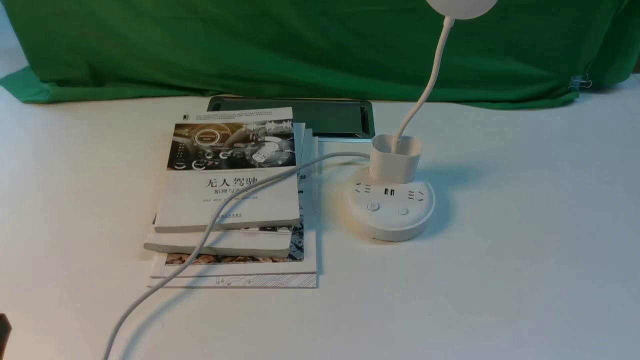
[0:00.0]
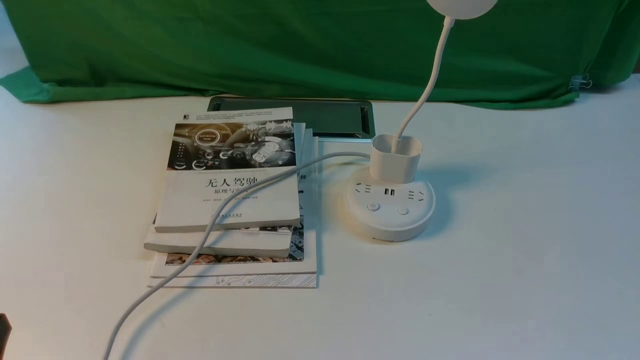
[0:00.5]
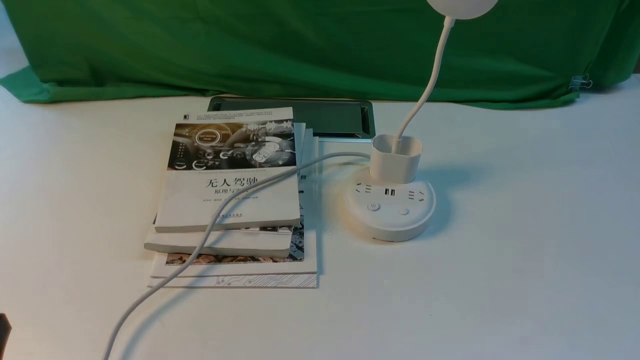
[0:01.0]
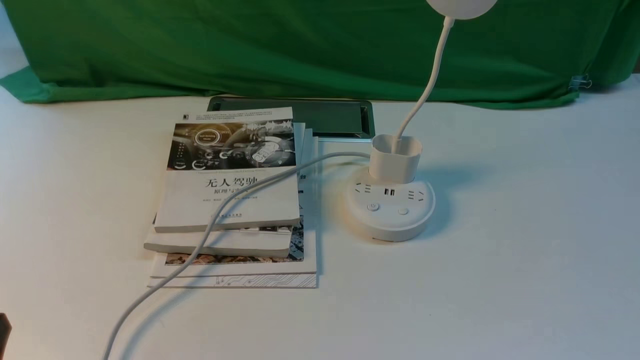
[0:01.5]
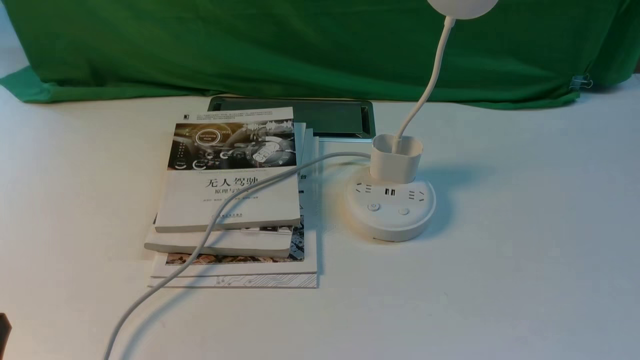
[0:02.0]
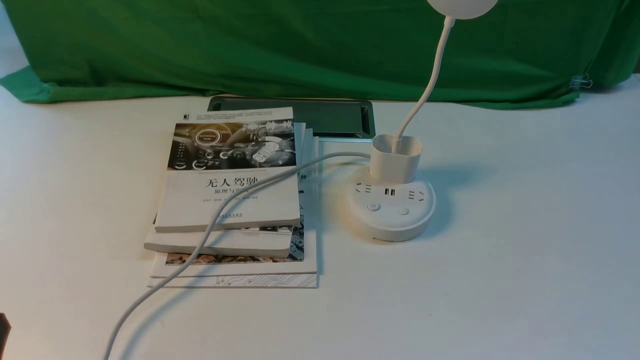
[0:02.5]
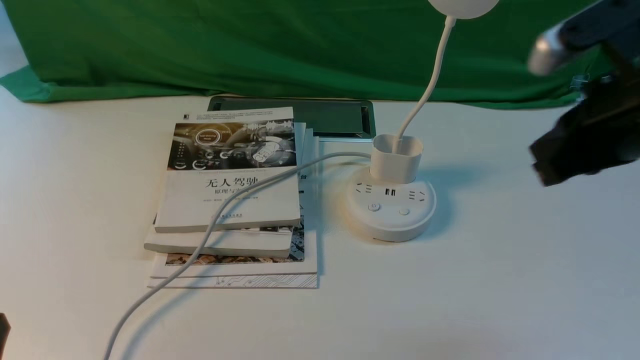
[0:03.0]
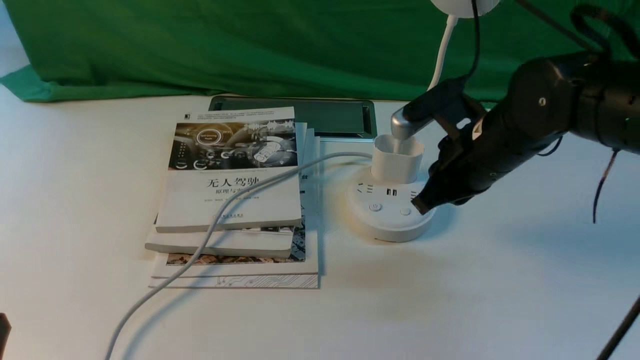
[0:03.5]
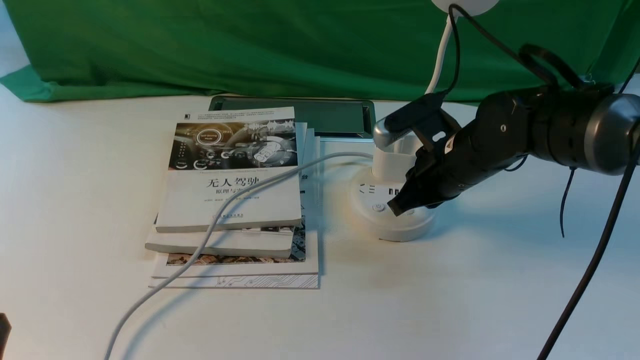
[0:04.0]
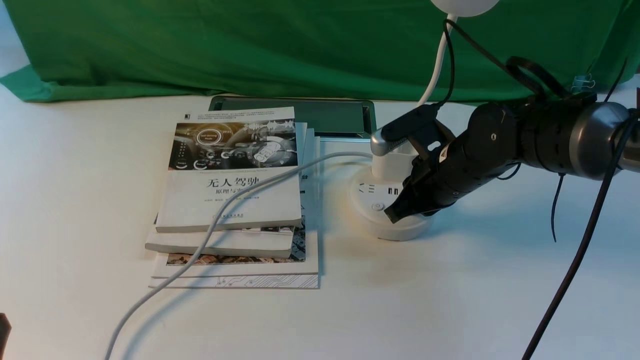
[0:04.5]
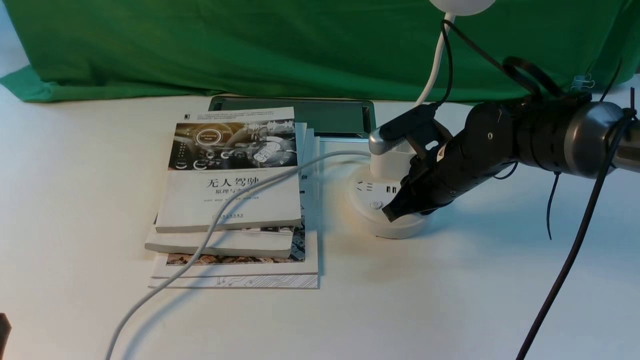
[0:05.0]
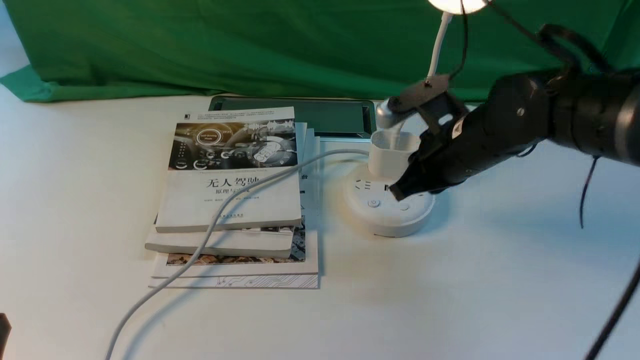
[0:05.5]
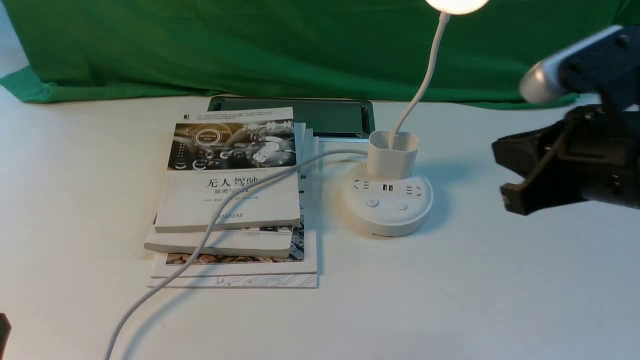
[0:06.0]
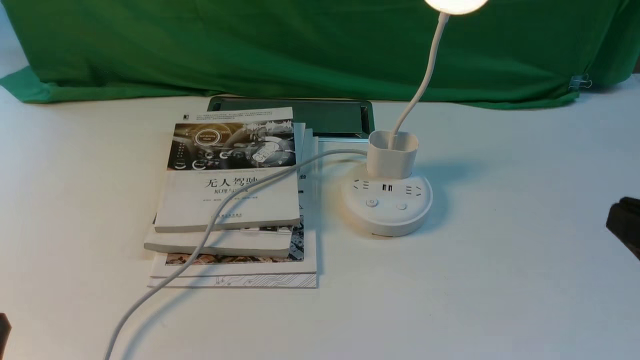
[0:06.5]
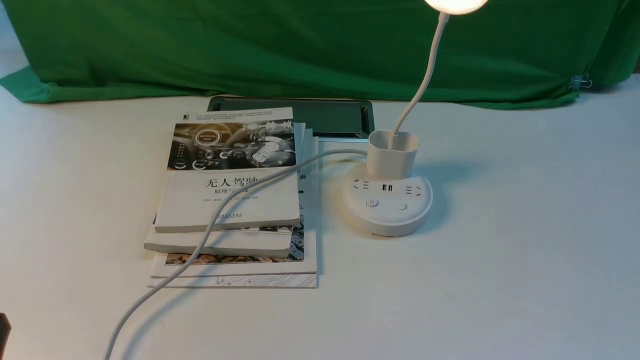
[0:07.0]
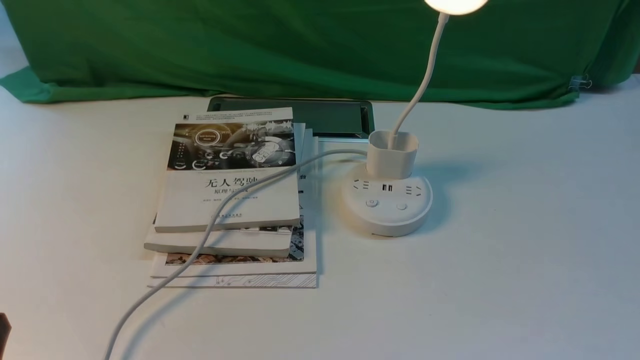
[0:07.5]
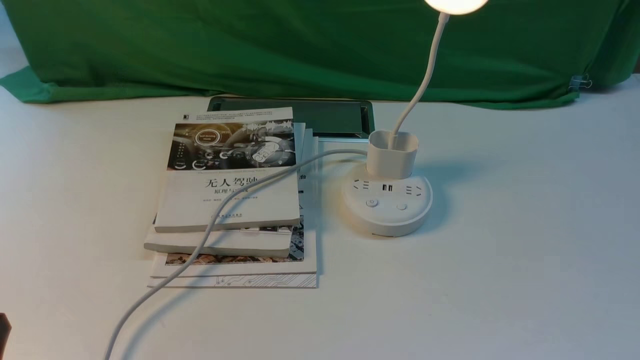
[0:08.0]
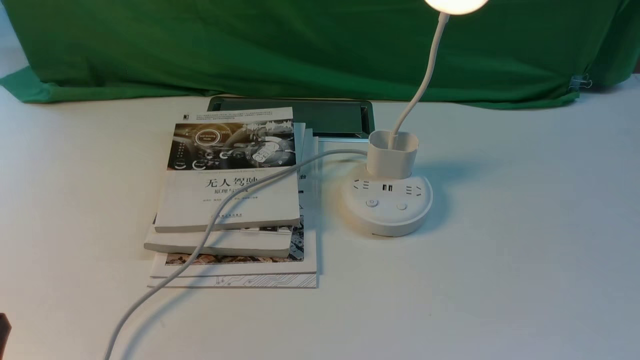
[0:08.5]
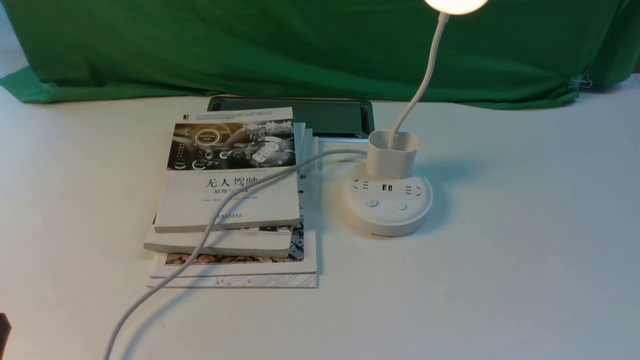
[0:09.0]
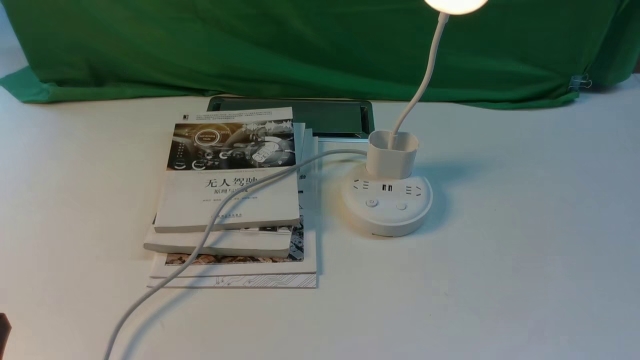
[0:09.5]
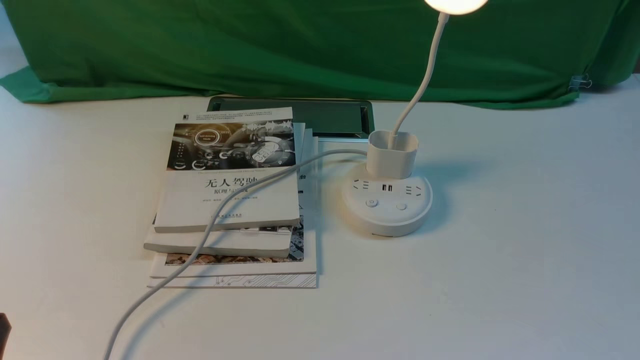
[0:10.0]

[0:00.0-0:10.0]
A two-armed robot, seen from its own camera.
Step, 0:00.0 to 0:05.5: use the right arm to press the button switch on the lamp holder.
0:02.0 to 0:04.0: The right gripper goes roughly 35 cm forward and to the left, and closes.
0:04.0 to 0:06.0: The right gripper shifts about 20 cm upward, backward and to the right.
0:06.0 to 0:08.0: The right gripper moves backward, downward and to the right, approximately 25 cm, and opens its fingers.
0:08.0 to 0:10.0: Neither gripper changes place.

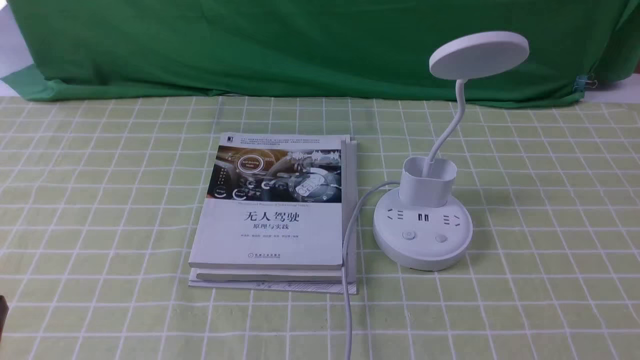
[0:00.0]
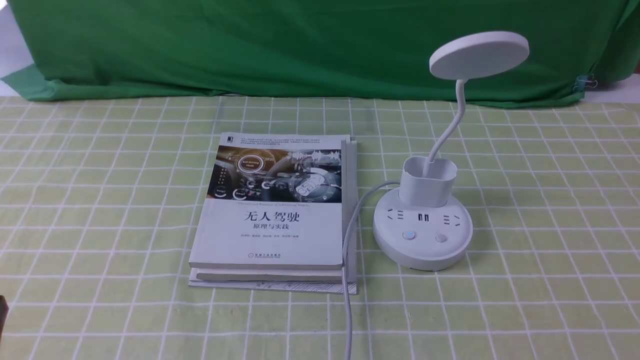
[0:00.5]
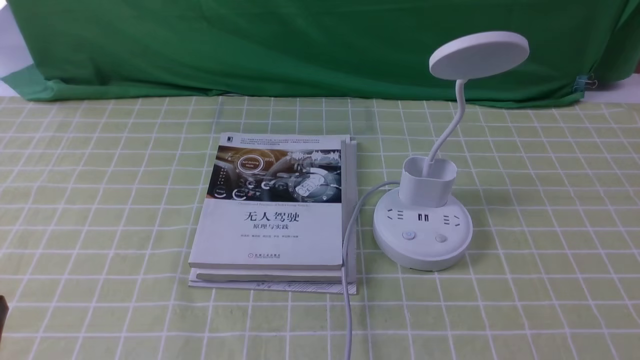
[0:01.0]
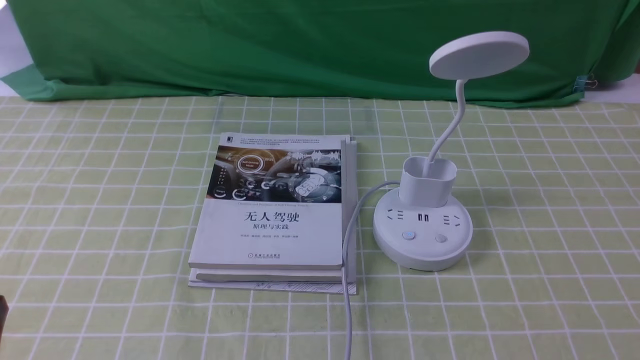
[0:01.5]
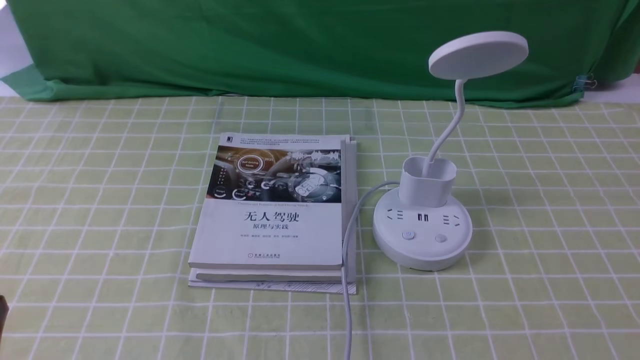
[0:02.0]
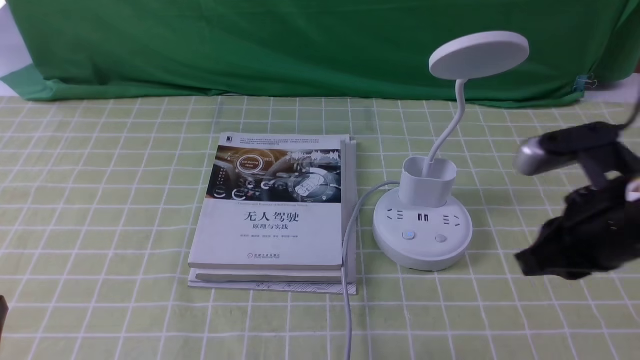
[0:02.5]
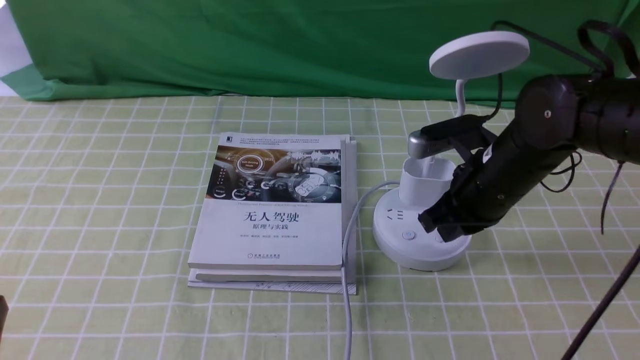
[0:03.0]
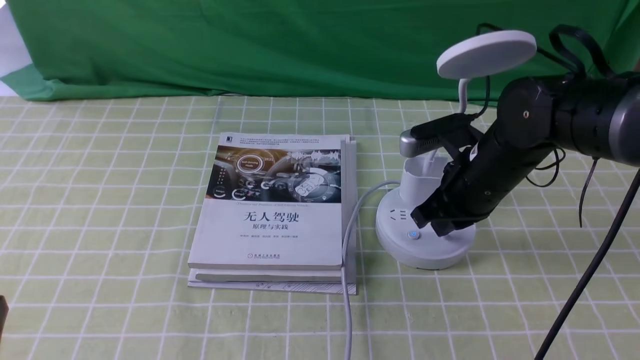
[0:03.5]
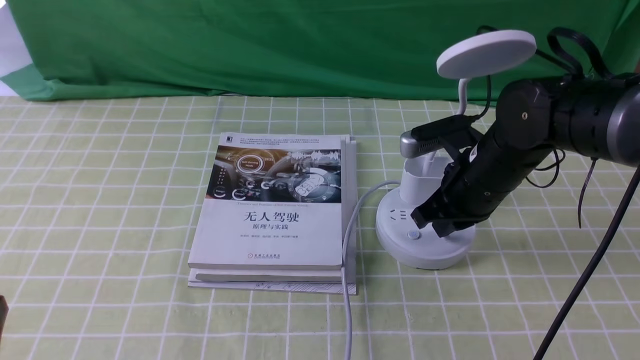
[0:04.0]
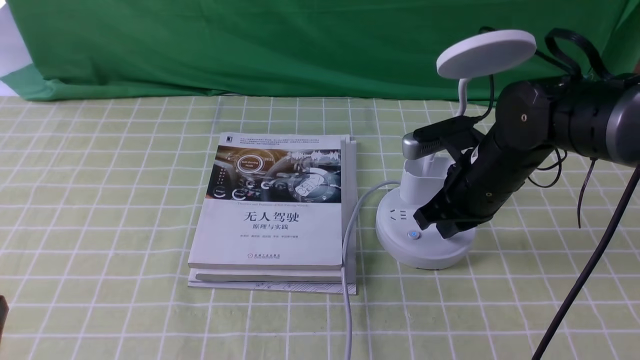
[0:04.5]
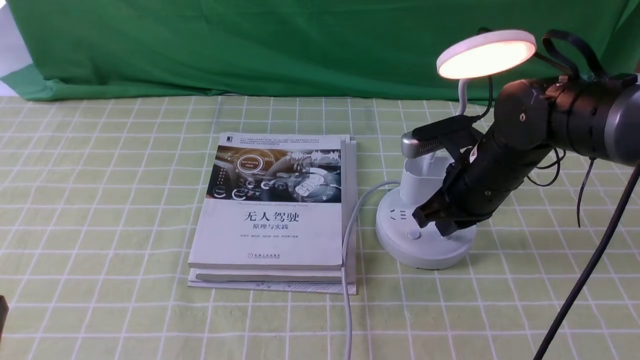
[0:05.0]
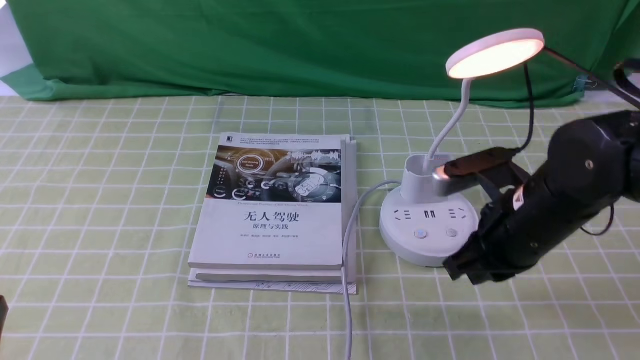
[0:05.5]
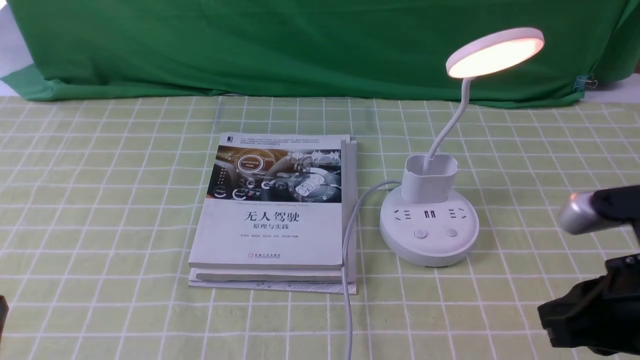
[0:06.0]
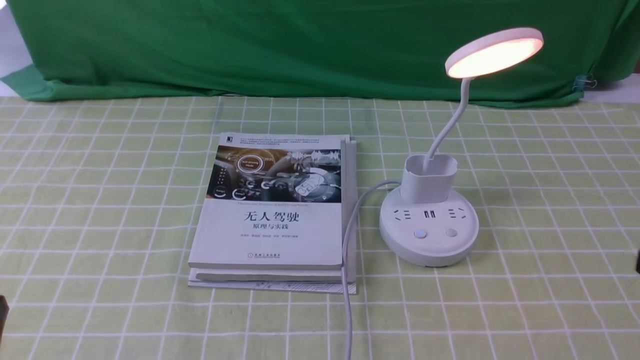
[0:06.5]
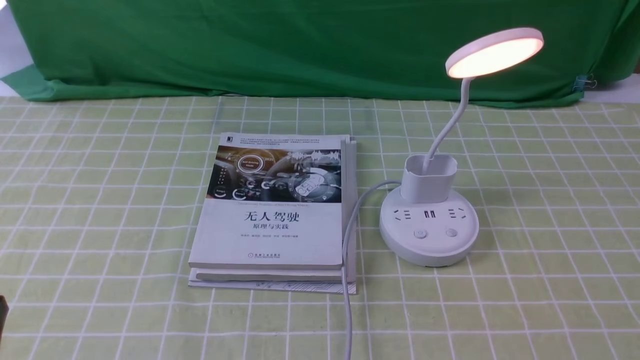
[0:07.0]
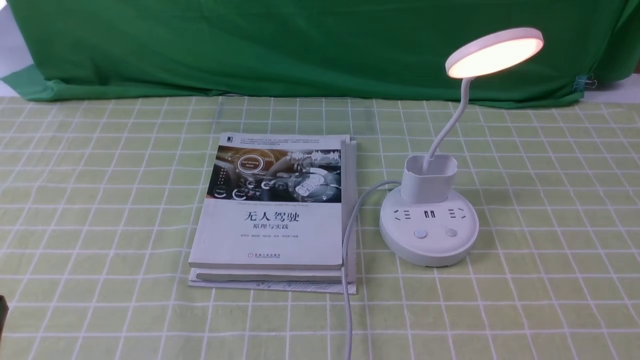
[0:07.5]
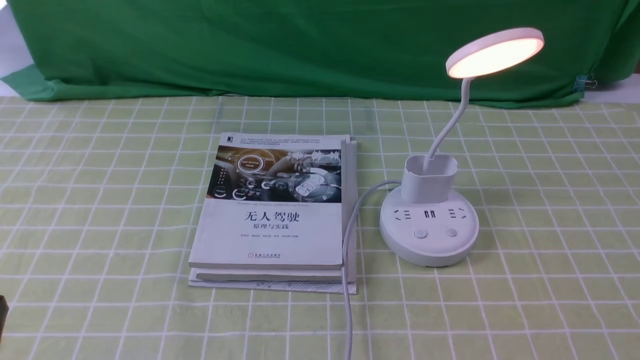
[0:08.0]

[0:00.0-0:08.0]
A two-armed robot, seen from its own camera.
Step, 0:00.0 to 0:05.0: use the right arm to press the button switch on the lamp holder.
0:02.0 to 0:04.0: The right gripper is displaced forward and to the left by approximately 30 cm.
0:04.0 to 0:06.0: The right gripper heads backward, covering about 20 cm.
0:06.0 to 0:08.0: The right gripper shifts roughly 15 cm backward, to the right and downward.
